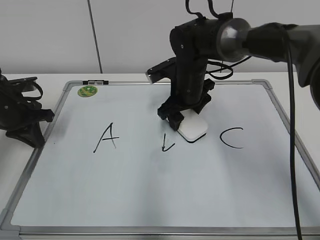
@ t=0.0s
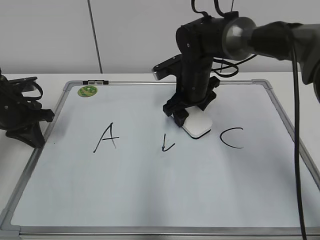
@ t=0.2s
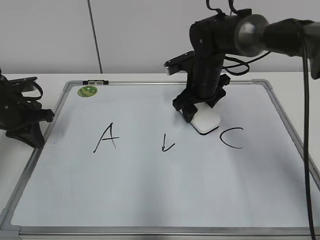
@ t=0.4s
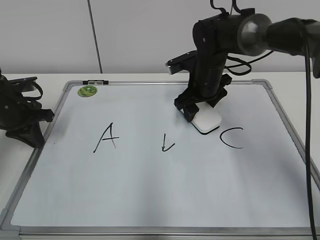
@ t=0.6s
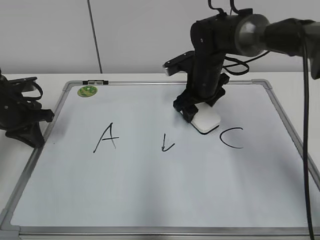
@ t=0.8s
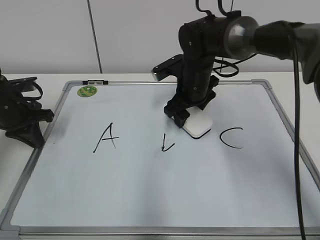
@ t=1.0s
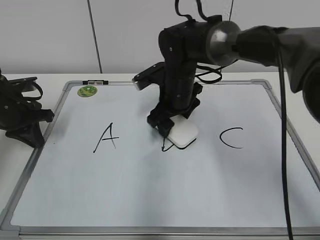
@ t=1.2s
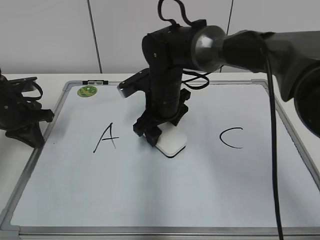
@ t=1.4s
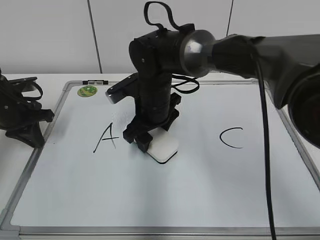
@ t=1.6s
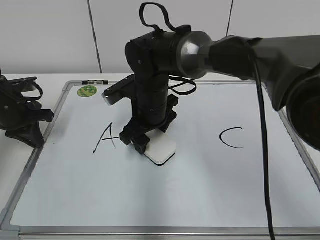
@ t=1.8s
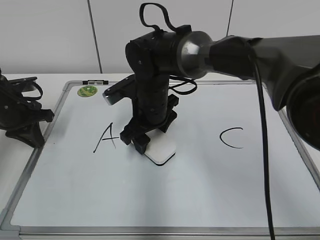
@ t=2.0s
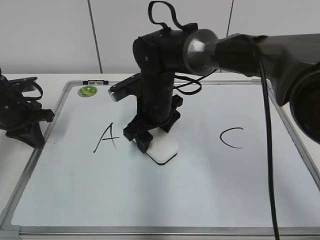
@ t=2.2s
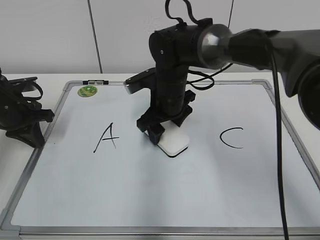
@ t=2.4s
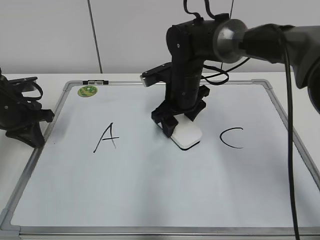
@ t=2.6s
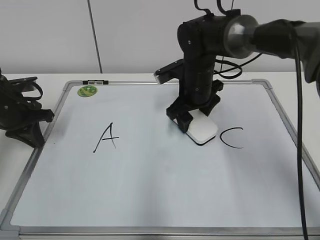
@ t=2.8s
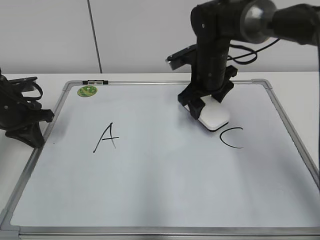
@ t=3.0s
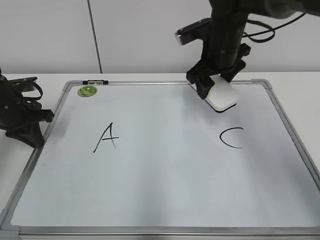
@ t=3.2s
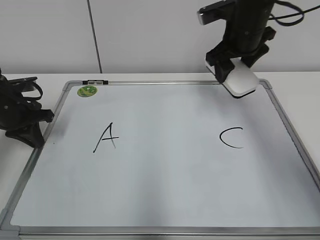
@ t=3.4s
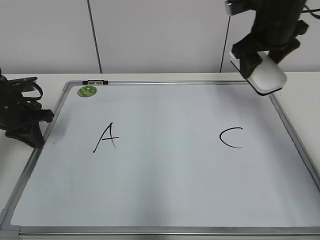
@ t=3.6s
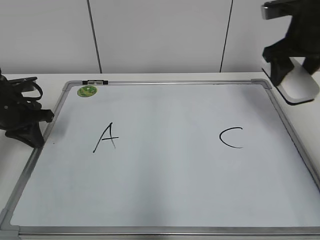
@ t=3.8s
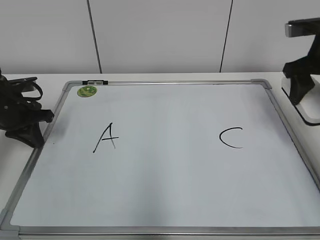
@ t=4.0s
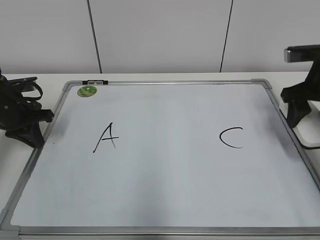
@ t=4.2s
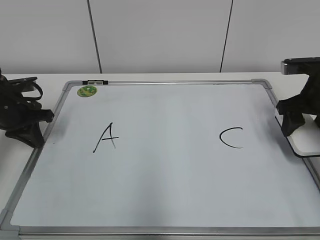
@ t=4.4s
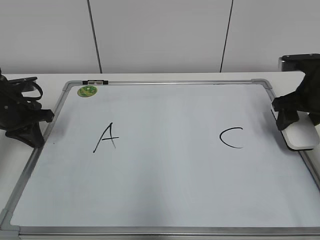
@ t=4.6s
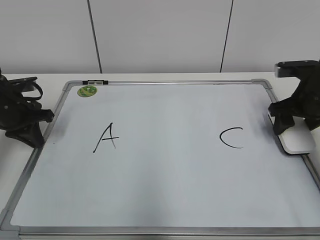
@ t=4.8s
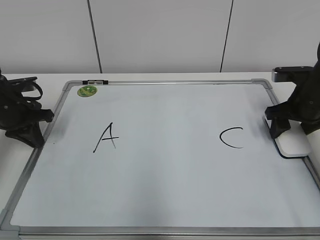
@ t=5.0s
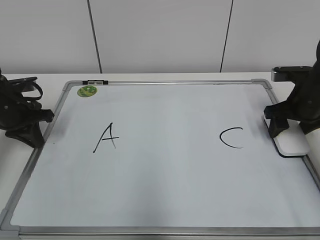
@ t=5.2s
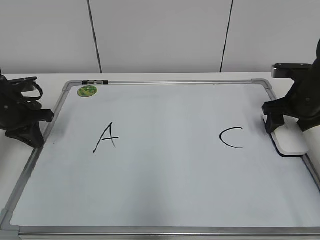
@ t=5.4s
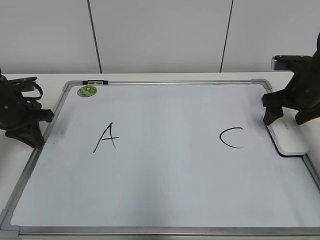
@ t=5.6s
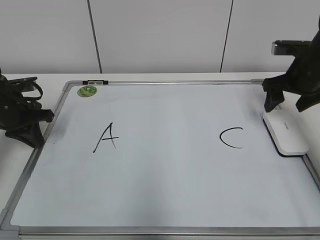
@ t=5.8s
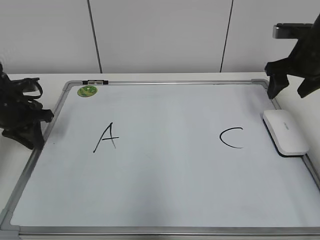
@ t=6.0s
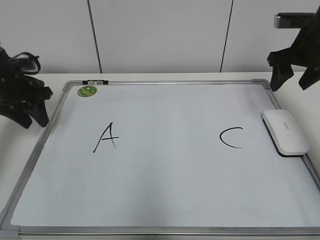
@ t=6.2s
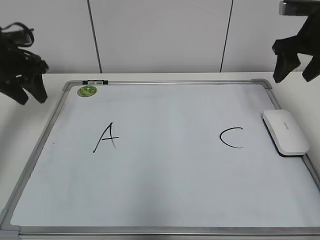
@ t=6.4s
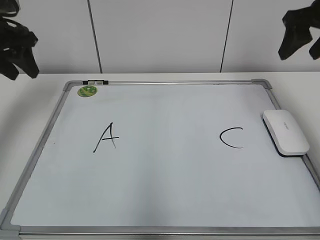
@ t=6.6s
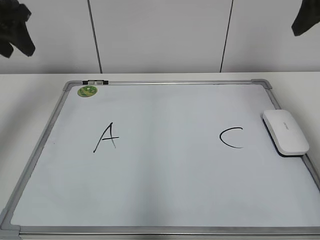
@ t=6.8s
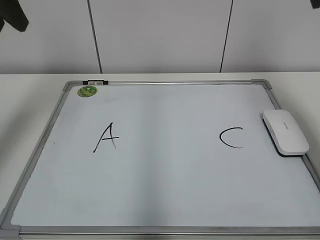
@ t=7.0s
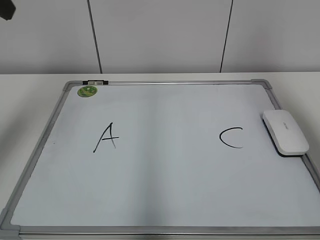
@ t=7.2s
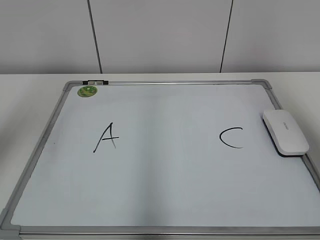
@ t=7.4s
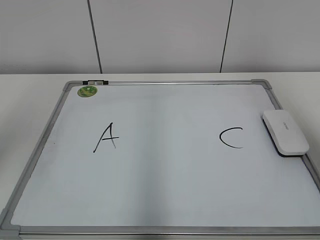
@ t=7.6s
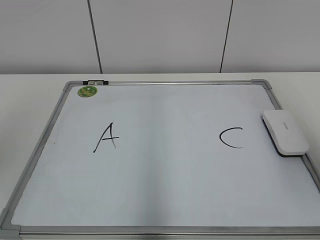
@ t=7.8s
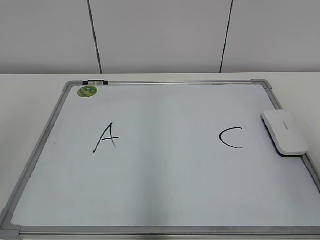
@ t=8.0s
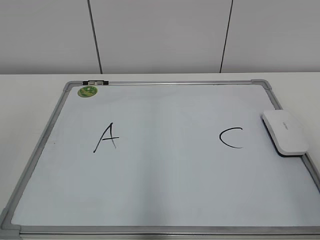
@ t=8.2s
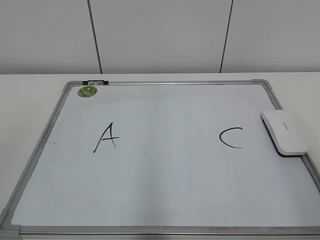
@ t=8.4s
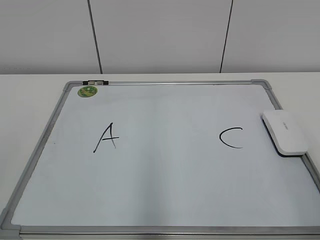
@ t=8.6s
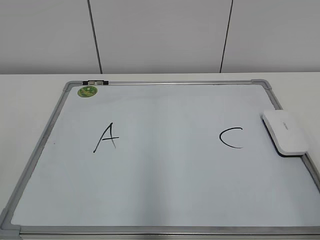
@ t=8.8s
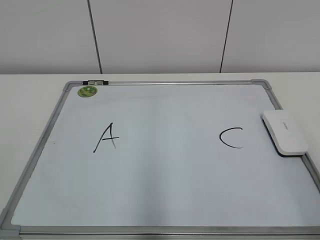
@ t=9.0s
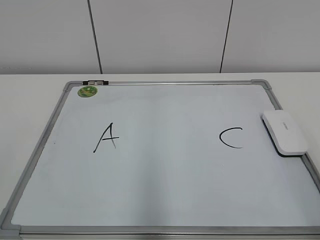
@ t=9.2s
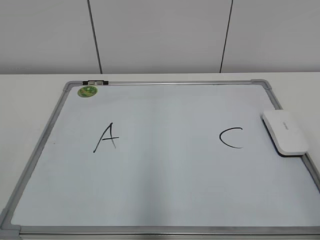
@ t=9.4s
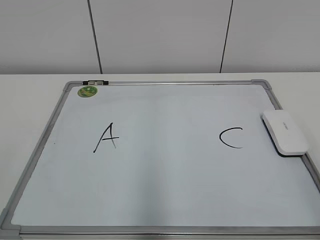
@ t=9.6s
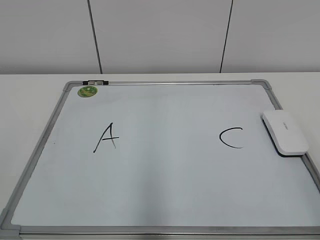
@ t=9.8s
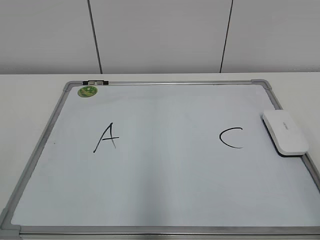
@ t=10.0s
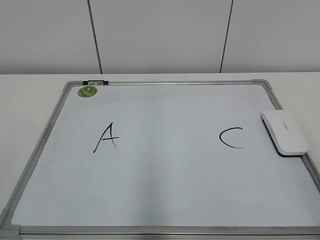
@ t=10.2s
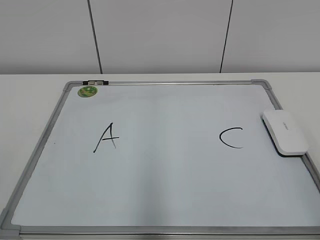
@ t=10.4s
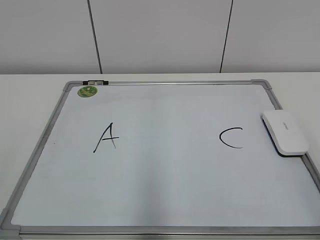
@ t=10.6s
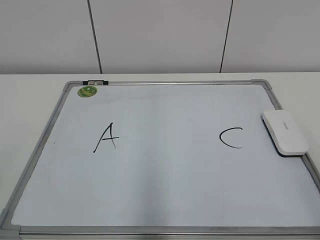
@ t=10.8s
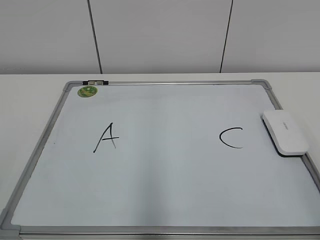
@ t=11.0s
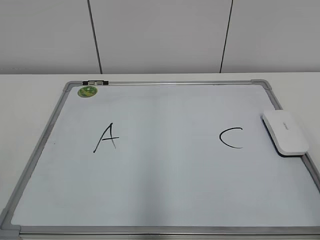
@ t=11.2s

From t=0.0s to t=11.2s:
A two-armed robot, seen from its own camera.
Task of the whole recording: pick up the eraser on the blackboard and erase the letter "B".
Step, from t=0.0s to t=2.8s: Erase the letter B with your right hand.
Step, from t=3.0s to t=5.2s: Put down the eraser with your right hand.
From t=0.0s to t=1.6s: The right gripper goes some 10 cm to the left and backward.
From t=1.6s to t=3.2s: The right gripper goes some 15 cm to the right, upward and forward.
From t=3.2s to t=4.8s: The right gripper heads to the right and downward, covering some 20 cm.
From t=4.8s to t=6.4s: Both grippers travel together upward, roughly 10 cm. The left gripper opens its fingers. The right gripper opens, then closes once more.
From t=6.4s to t=8.0s: The left gripper shifts roughly 35 cm backward and upward. Meanwhile the right gripper travels backward by about 30 cm.
From t=9.6s to t=11.2s: The two grippers keep their place.

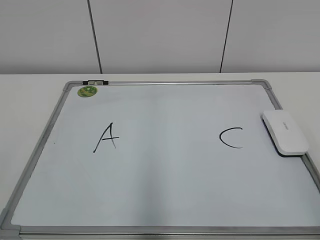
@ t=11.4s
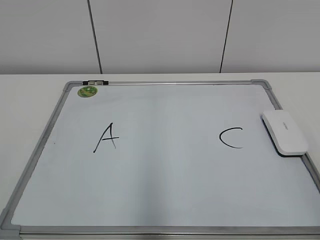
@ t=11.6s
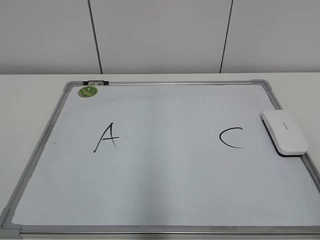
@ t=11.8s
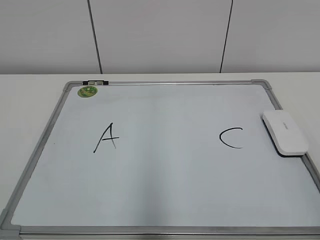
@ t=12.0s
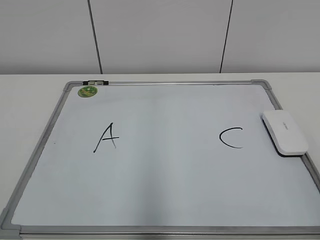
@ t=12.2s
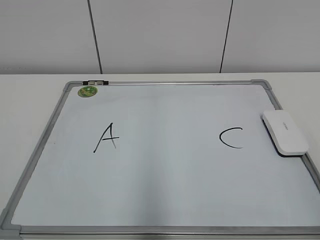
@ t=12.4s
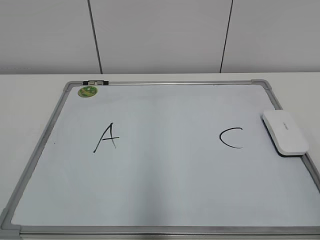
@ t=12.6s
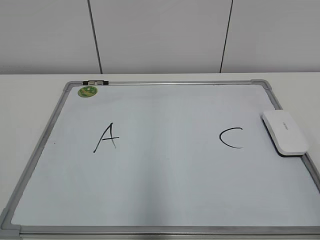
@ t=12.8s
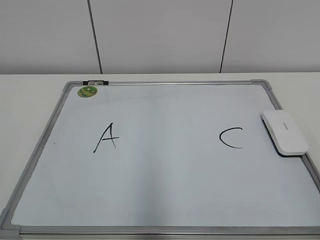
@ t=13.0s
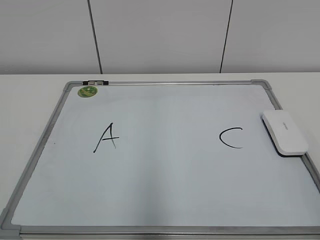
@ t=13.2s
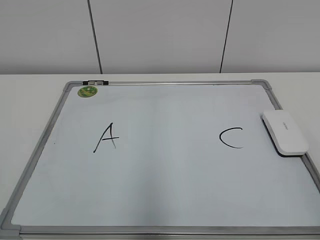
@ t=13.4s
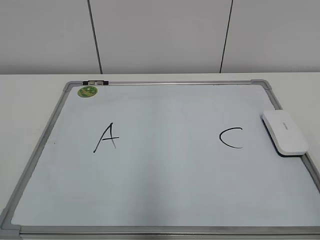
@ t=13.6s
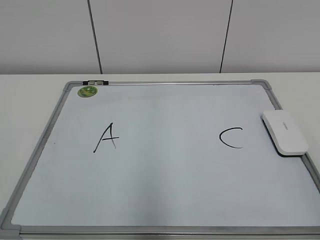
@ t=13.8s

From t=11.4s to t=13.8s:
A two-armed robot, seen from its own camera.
Task of the whole recording: pick up the eraser on the blackboard and erase the letter "B".
From t=12.6s to t=13.8s: Neither gripper changes place.
